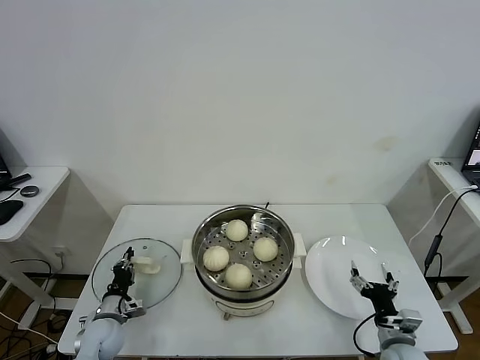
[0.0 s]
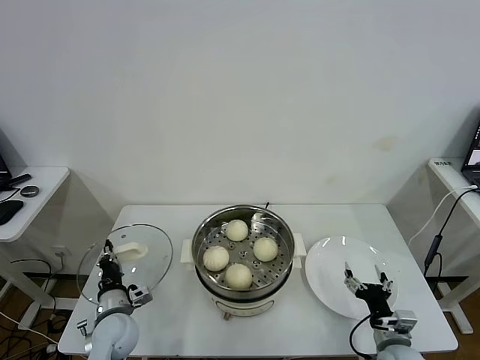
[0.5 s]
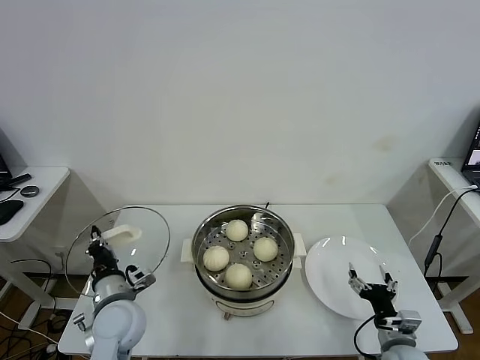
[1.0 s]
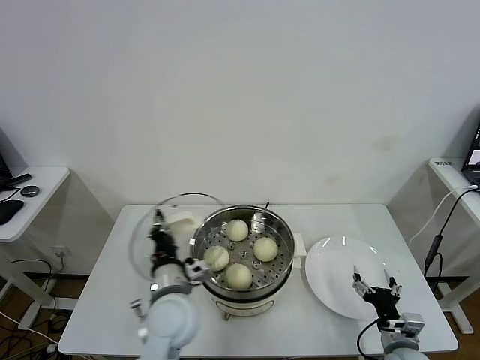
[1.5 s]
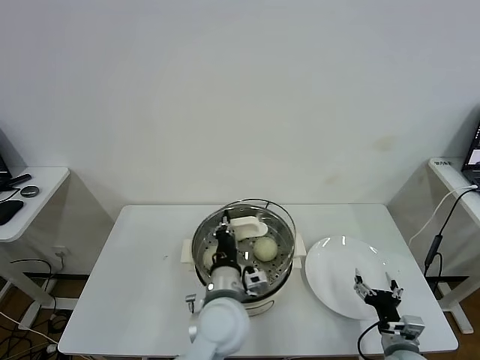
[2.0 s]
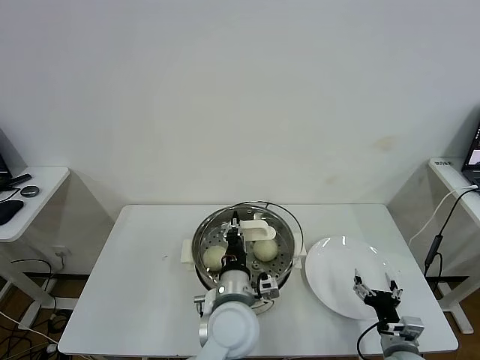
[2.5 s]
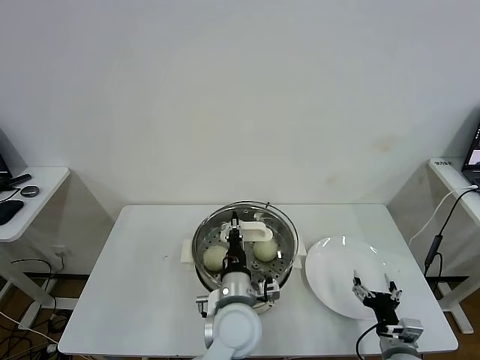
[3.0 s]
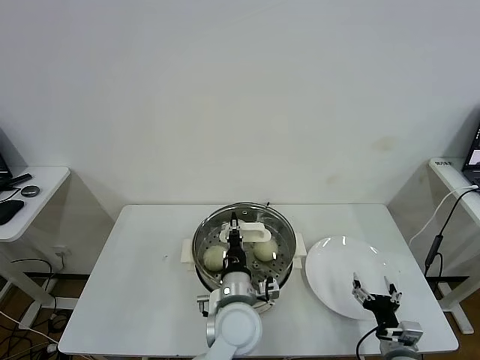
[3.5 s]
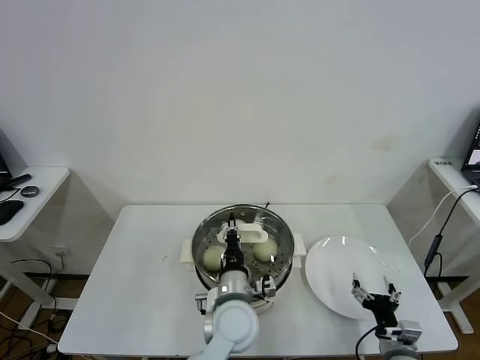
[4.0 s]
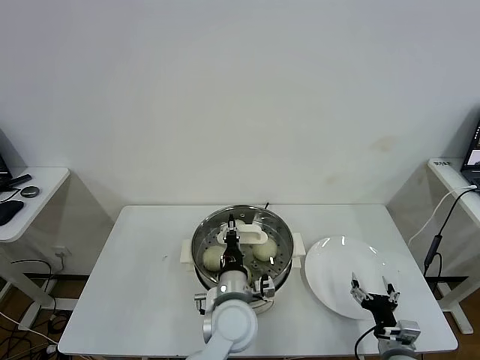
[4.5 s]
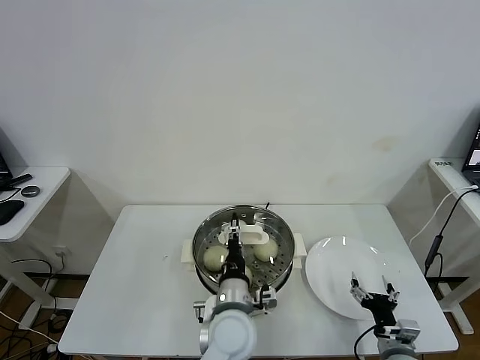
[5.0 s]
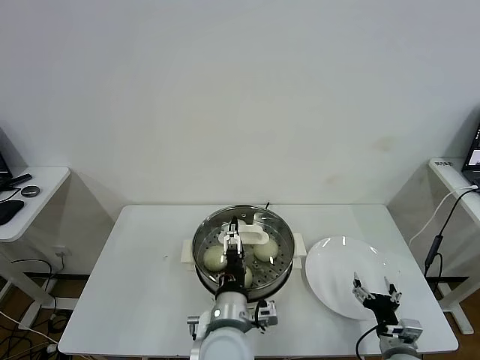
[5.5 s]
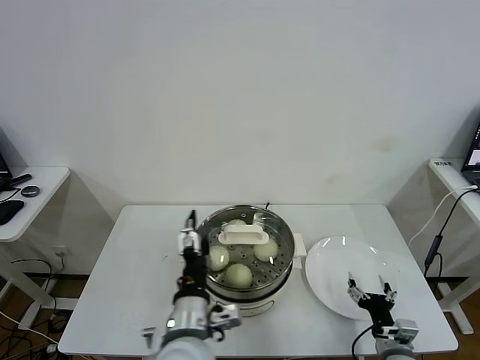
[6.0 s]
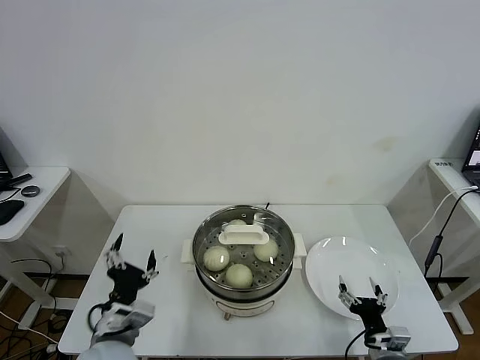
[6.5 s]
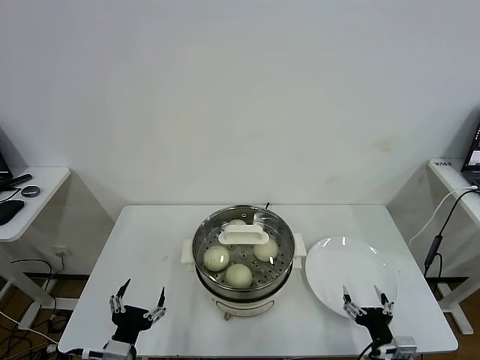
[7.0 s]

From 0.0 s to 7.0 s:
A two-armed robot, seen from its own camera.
Task of the whole recording: take steamed baozi put them in steamer.
Step, from 1.0 s to 5.5 s: Place the pot lid on the steamer with left gripper.
From 0.0 s to 2.0 s: The left gripper shifts about 35 cm to the right and upward.
From 2.0 s to 3.5 s: The grippers stay close to where they were, moving slightly.
From 3.5 s to 5.0 s: The left gripper opens its fingers.
From 5.0 s to 7.0 s: The left gripper heads to the left and backward, covering some 25 cm, and opens its fingers.

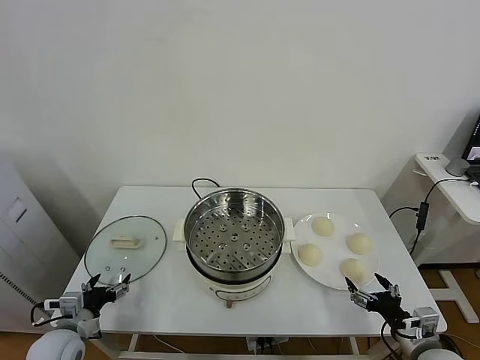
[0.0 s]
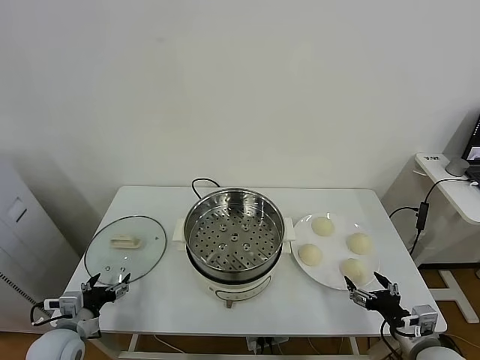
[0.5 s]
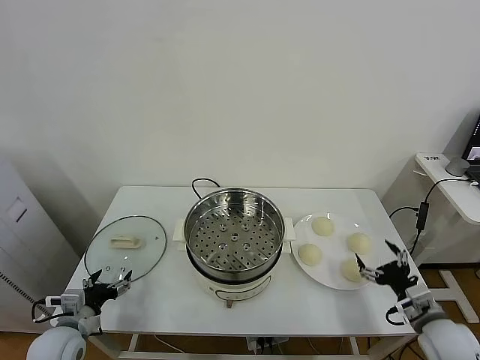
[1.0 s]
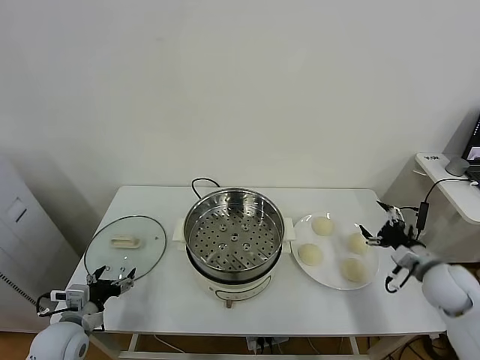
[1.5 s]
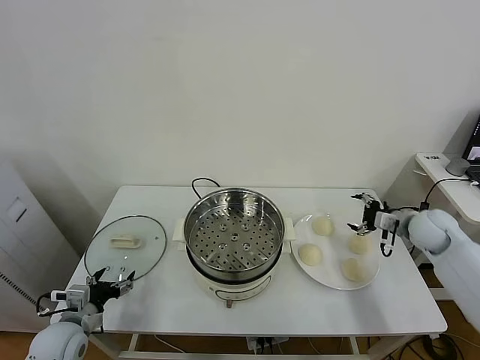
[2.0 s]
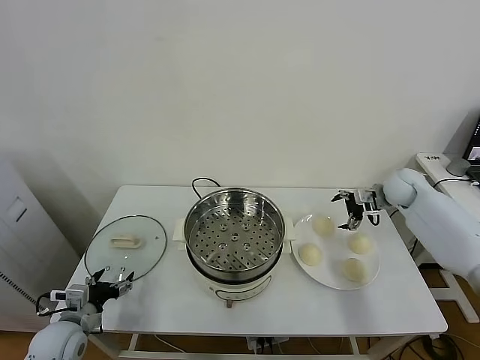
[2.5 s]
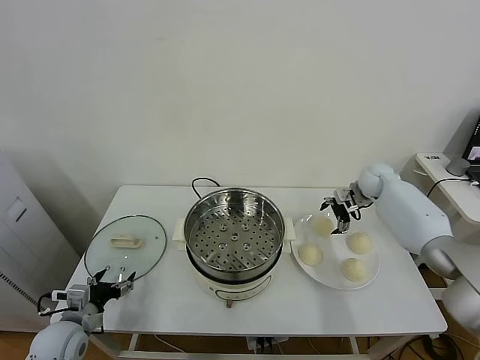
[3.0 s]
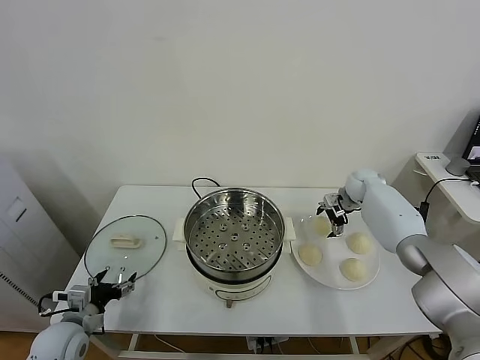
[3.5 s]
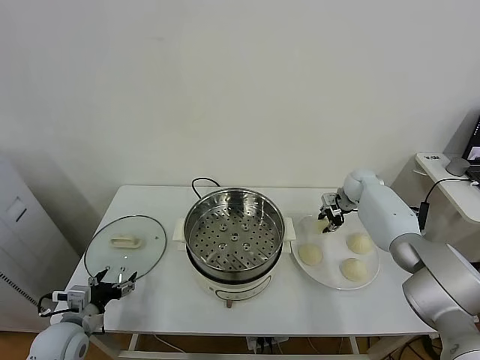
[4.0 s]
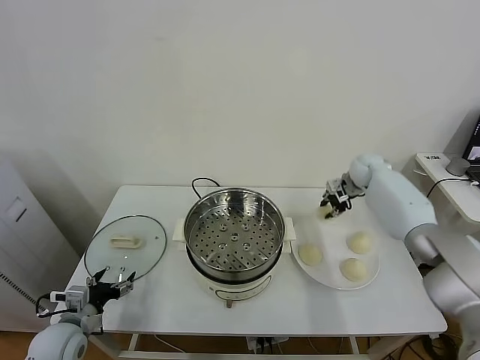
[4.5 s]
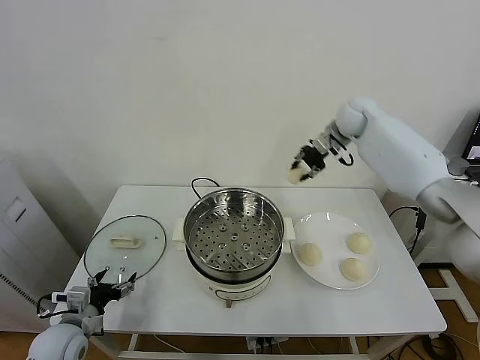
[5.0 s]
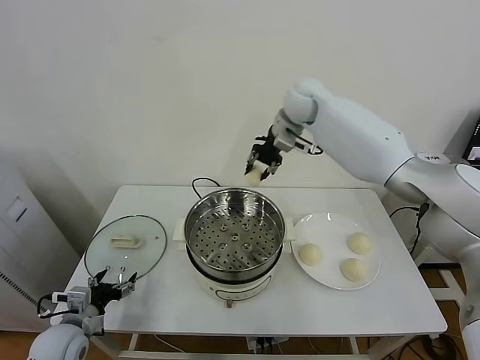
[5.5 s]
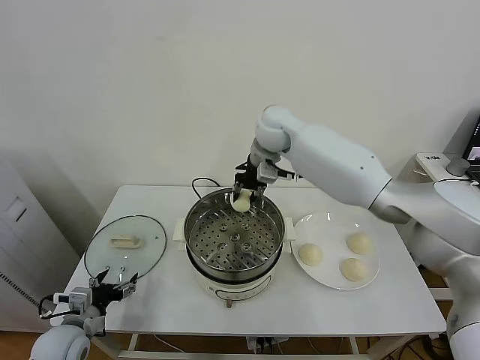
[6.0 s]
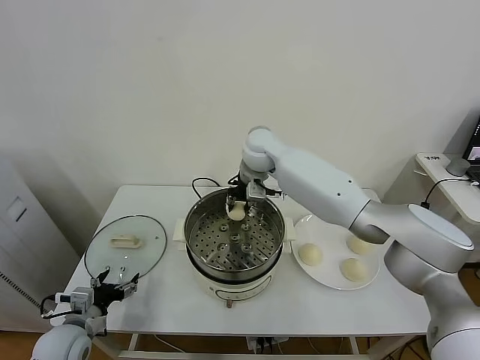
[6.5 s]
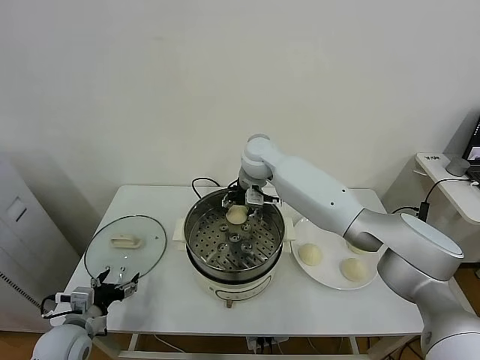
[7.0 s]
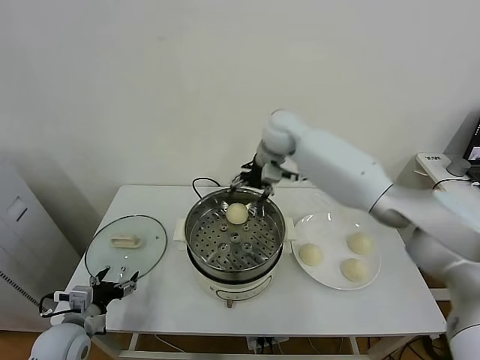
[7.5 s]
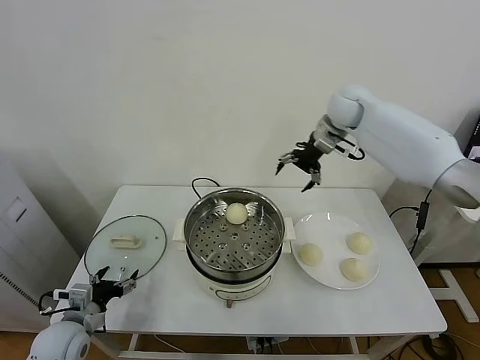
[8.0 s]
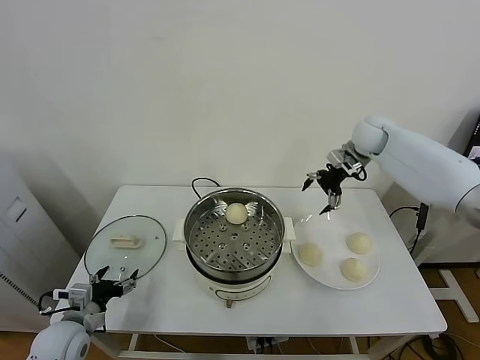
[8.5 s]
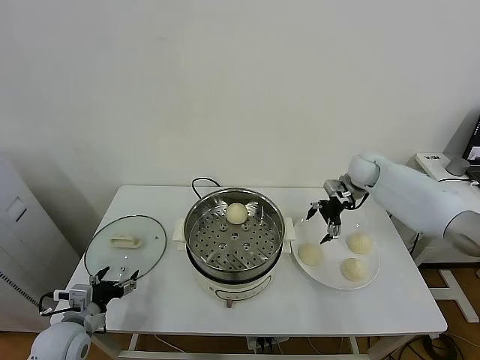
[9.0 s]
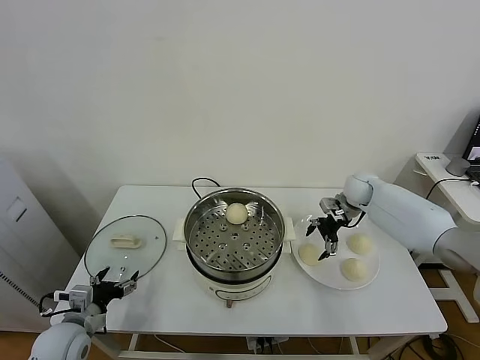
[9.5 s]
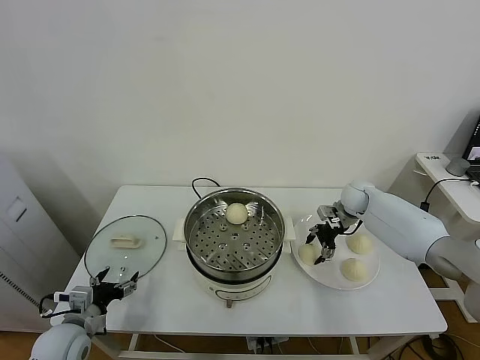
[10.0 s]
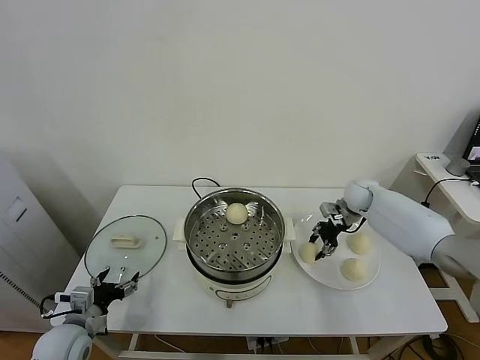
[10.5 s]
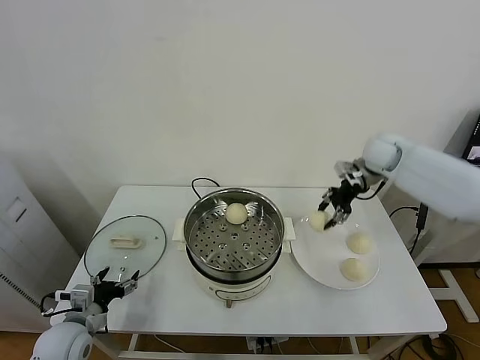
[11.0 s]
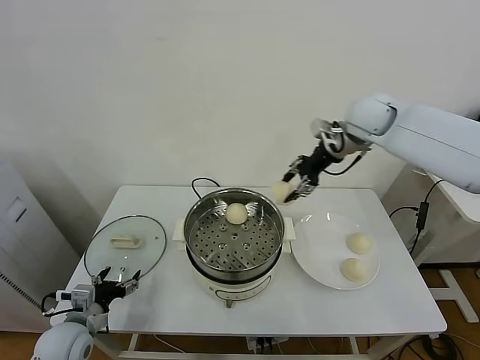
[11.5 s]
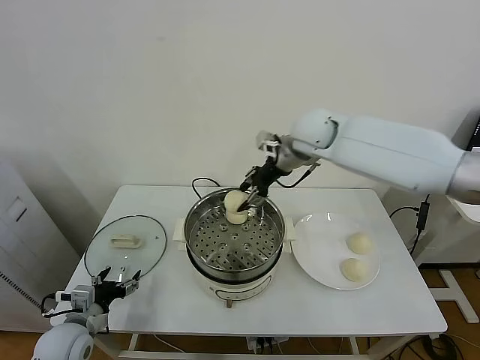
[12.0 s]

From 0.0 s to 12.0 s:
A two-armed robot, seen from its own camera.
Task of the whole recording: take steamed baozi put them in steamer.
Step, from 0.0 s to 3.5 s: Grasp the baozi in the plate with right gripper.
Step, from 4.0 s to 7.0 s: Place the baozi on the steamer with right gripper.
Step, from 7.5 s to 10.0 s: Grasp the baozi in the plate with right gripper.
From 2.0 s to 4.0 s: The right gripper travels forward and to the left by about 20 cm, and closes up.
From 4.0 s to 6.0 s: The right gripper heads to the left and upward, covering roughly 35 cm.
From 6.0 s to 8.0 s: The right gripper is displaced to the right by roughly 15 cm, and opens.
From 8.0 s to 10.0 s: The right gripper travels downward by about 25 cm.
From 10.0 s to 12.0 s: The right gripper moves upward and to the left, about 30 cm, and closes.

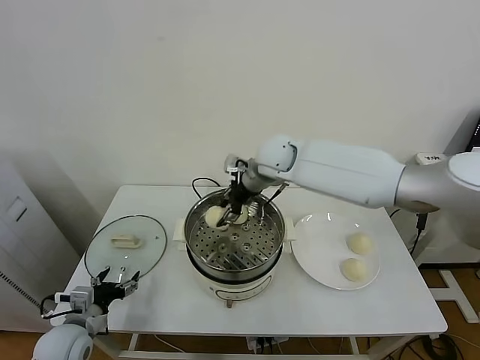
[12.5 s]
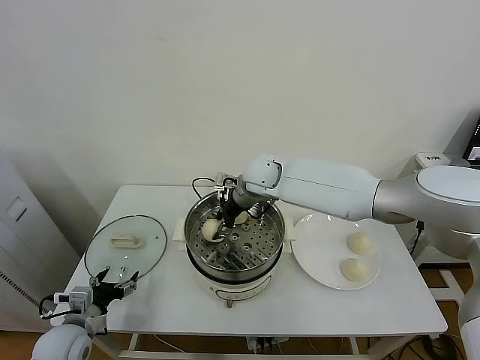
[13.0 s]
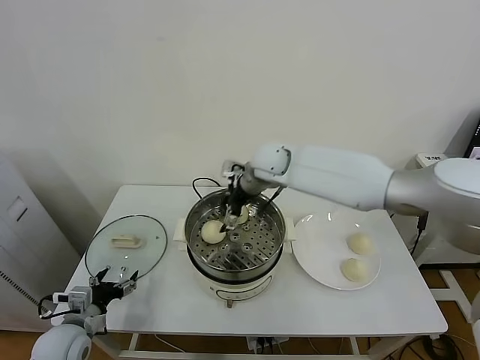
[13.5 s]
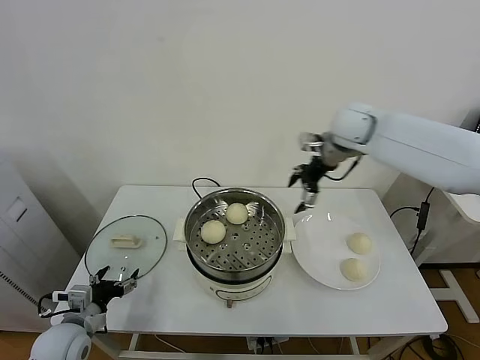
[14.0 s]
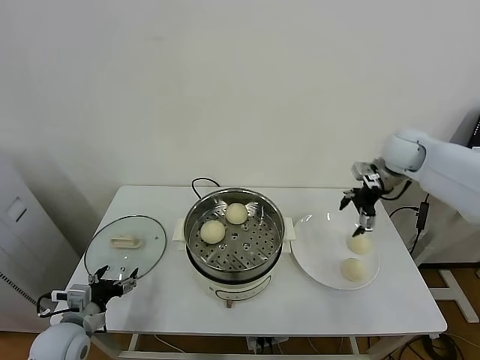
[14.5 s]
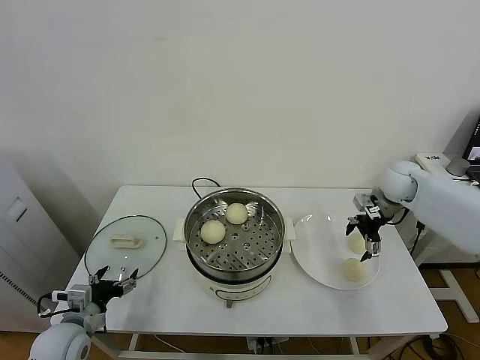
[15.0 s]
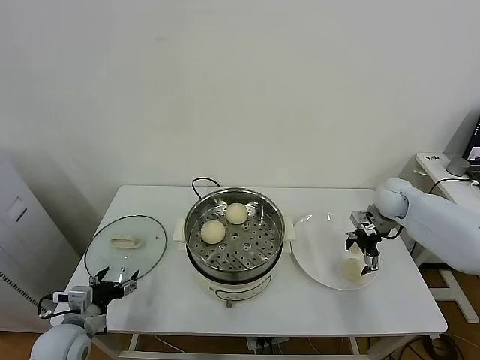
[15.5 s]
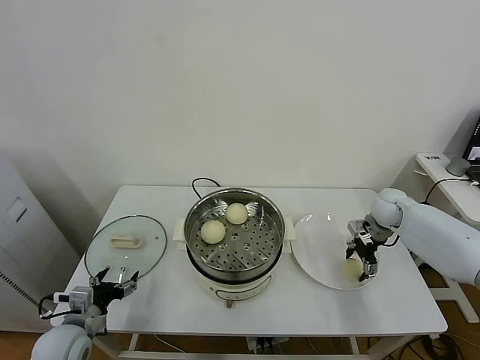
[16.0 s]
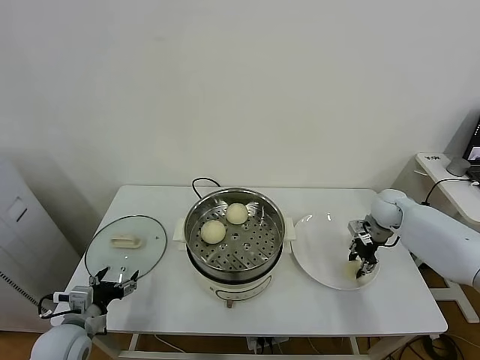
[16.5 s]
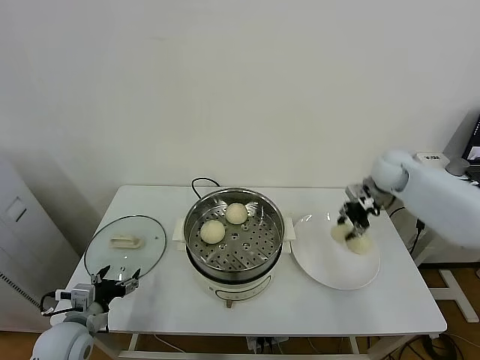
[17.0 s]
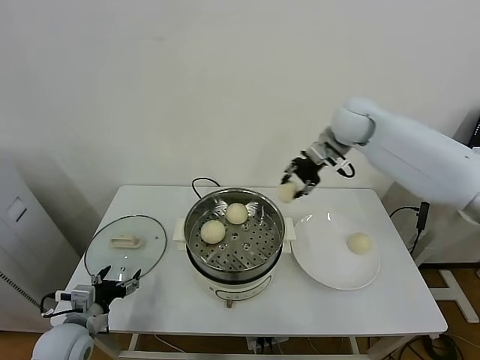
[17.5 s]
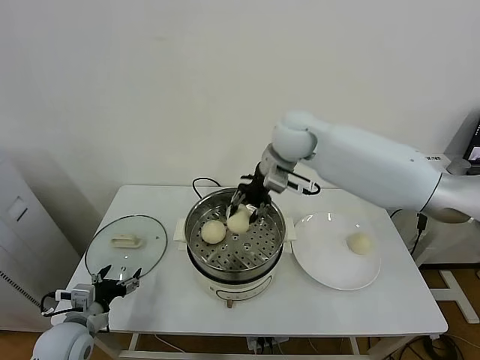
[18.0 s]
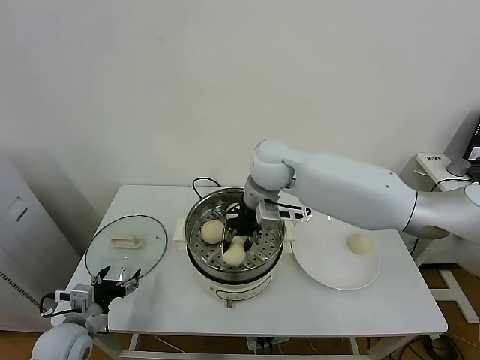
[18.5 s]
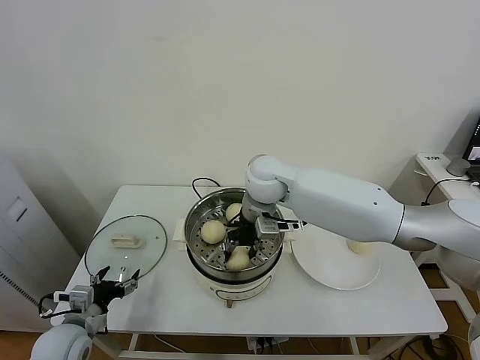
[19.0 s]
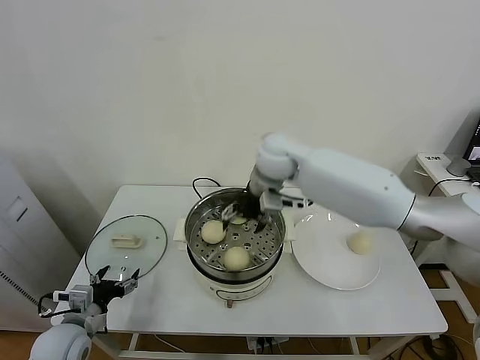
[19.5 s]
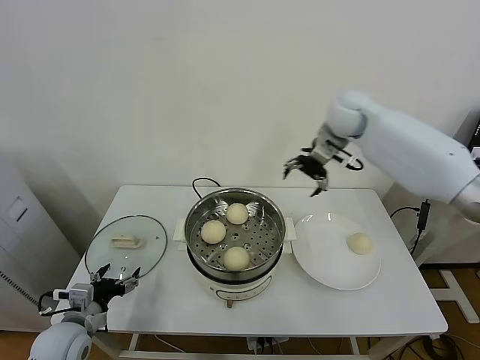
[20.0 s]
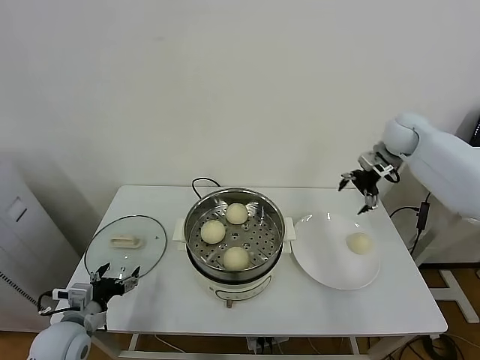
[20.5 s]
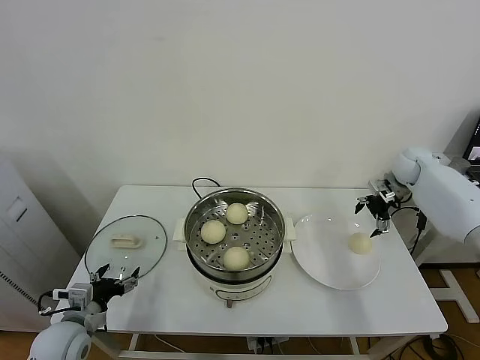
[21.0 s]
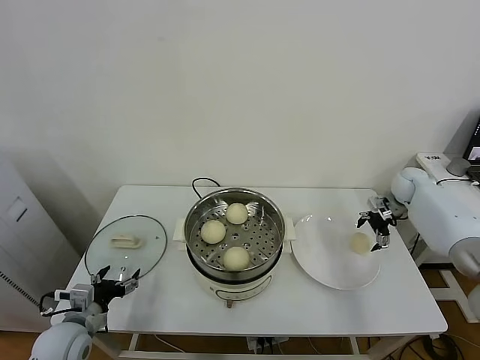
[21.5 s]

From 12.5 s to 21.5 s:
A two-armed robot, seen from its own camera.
Task of the whole recording: take steamed baozi put them in steamer.
Step, from 13.5 s to 16.0 s: Grasp the baozi in the plate with right gripper.
Step, from 16.5 s to 19.0 s: Place the baozi on the steamer with right gripper.
From 12.5 s to 14.5 s: The right gripper shifts roughly 30 cm to the right, and opens its fingers.
From 14.5 s to 17.0 s: The right gripper goes about 5 cm downward, and closes.
From 17.0 s to 19.5 s: The right gripper heads to the left, covering roughly 30 cm, and opens its fingers.
From 19.5 s to 21.5 s: The right gripper moves to the right, approximately 40 cm.
